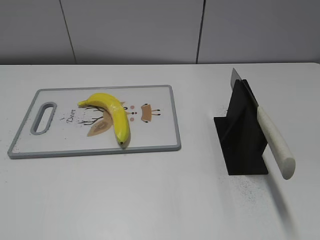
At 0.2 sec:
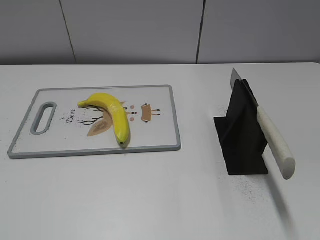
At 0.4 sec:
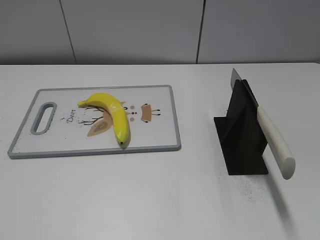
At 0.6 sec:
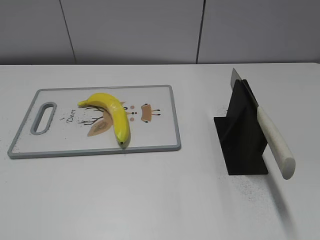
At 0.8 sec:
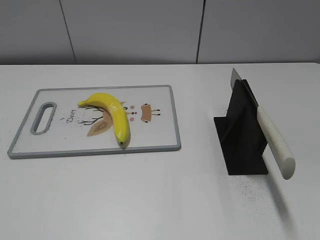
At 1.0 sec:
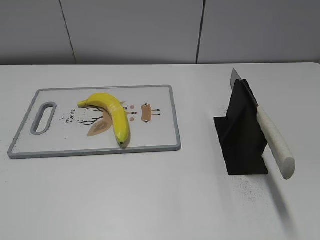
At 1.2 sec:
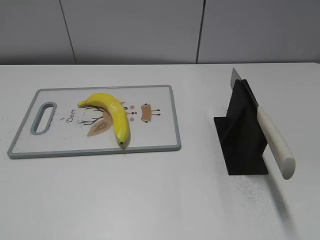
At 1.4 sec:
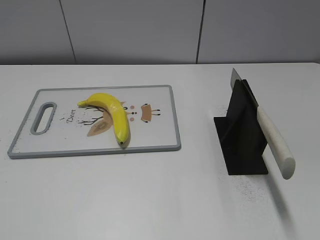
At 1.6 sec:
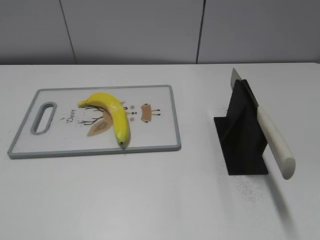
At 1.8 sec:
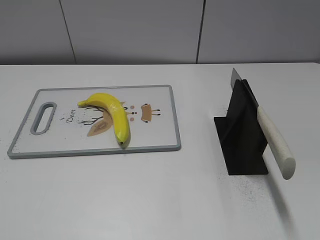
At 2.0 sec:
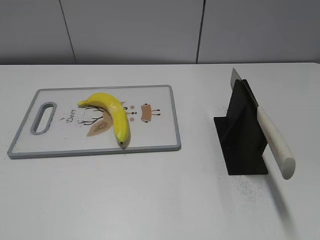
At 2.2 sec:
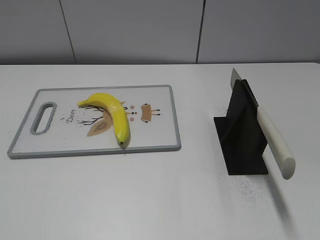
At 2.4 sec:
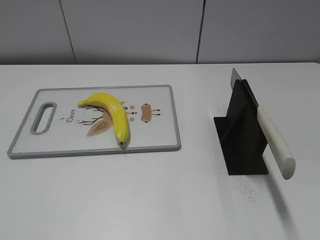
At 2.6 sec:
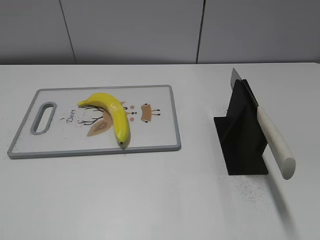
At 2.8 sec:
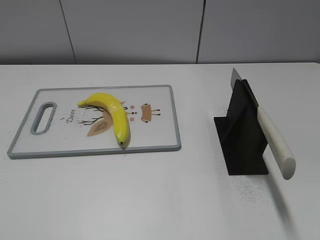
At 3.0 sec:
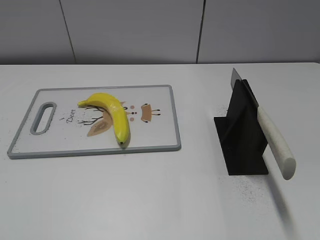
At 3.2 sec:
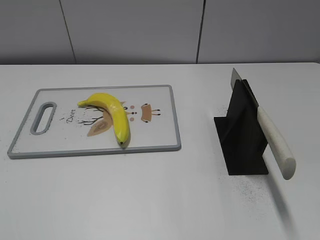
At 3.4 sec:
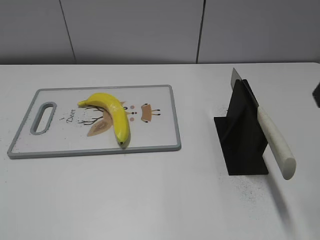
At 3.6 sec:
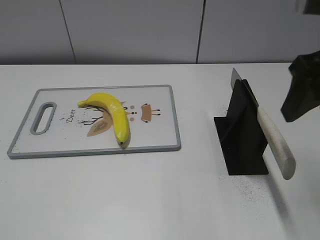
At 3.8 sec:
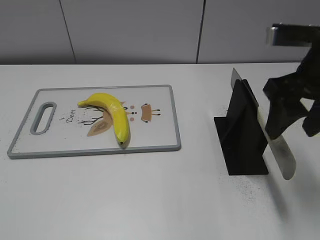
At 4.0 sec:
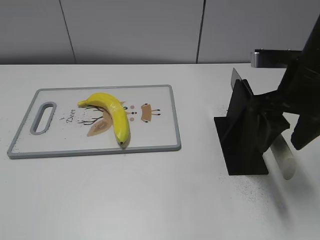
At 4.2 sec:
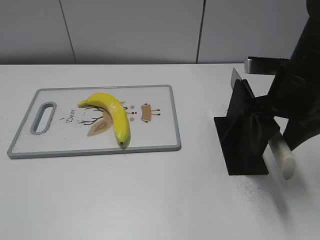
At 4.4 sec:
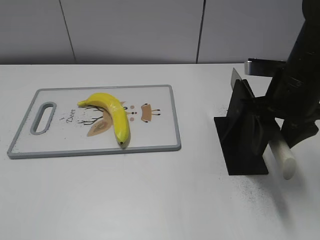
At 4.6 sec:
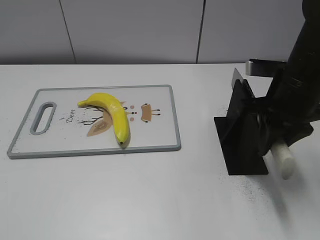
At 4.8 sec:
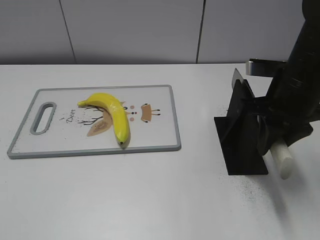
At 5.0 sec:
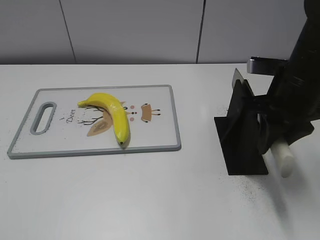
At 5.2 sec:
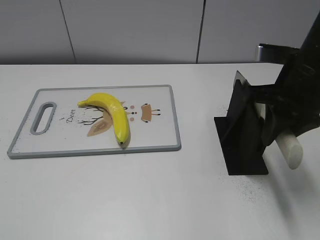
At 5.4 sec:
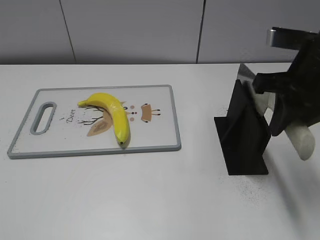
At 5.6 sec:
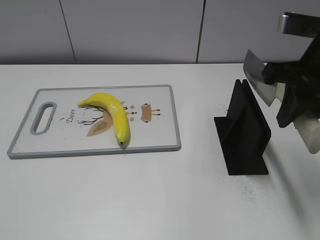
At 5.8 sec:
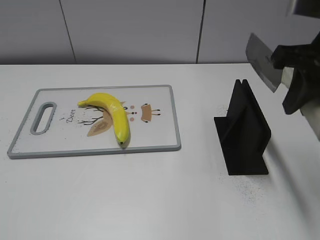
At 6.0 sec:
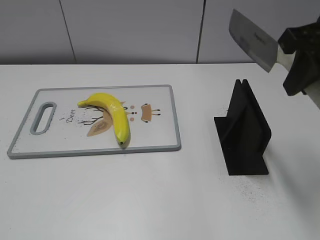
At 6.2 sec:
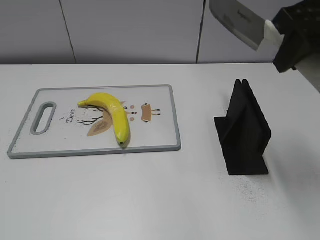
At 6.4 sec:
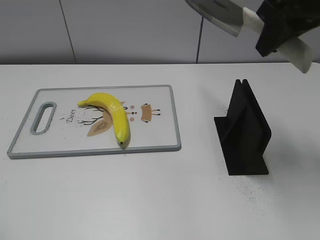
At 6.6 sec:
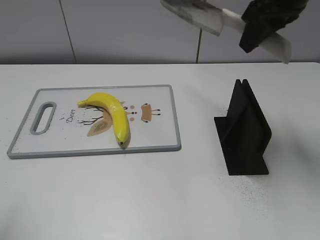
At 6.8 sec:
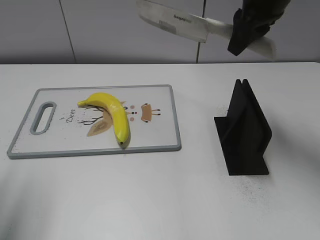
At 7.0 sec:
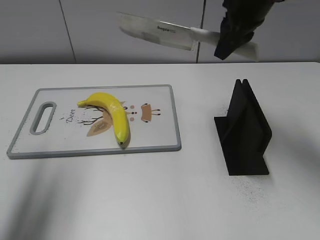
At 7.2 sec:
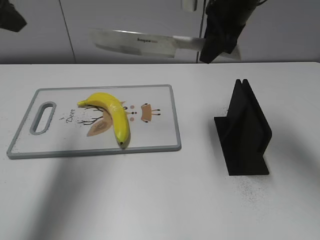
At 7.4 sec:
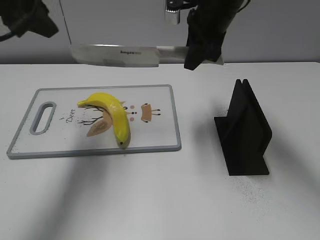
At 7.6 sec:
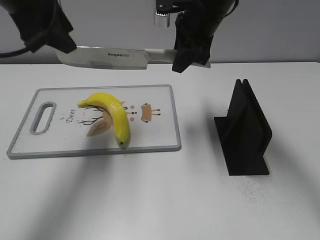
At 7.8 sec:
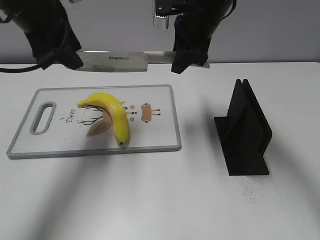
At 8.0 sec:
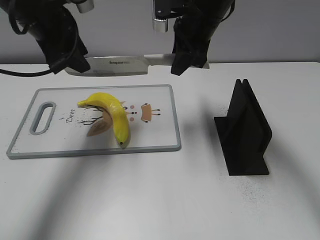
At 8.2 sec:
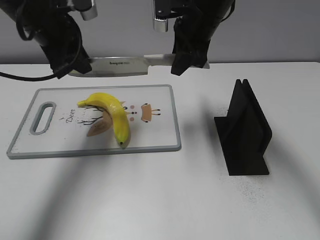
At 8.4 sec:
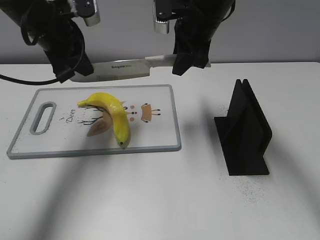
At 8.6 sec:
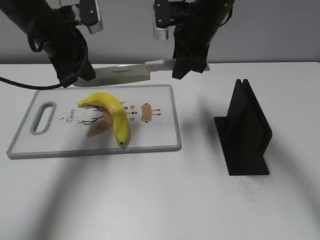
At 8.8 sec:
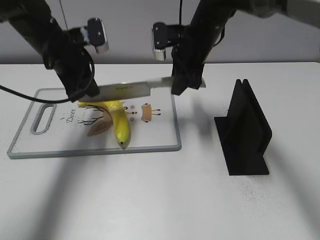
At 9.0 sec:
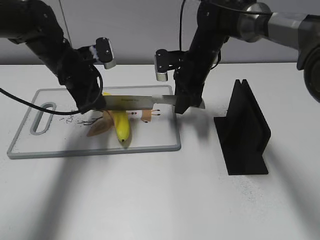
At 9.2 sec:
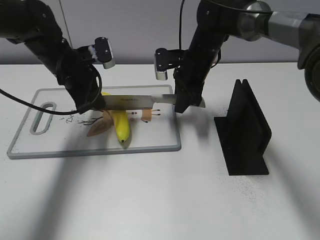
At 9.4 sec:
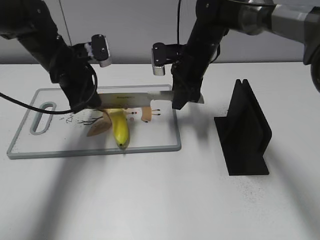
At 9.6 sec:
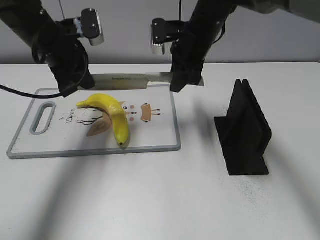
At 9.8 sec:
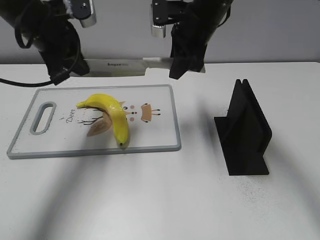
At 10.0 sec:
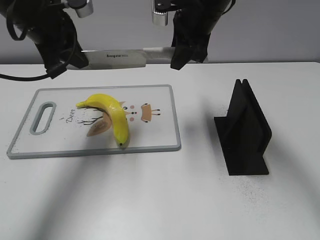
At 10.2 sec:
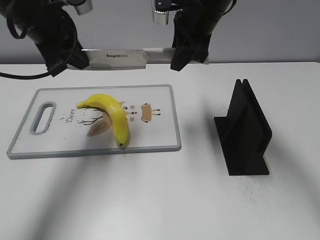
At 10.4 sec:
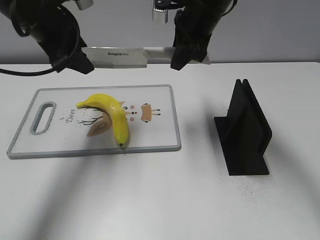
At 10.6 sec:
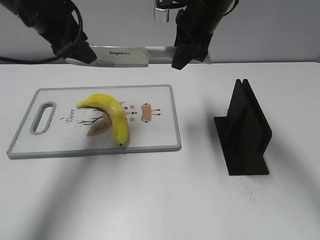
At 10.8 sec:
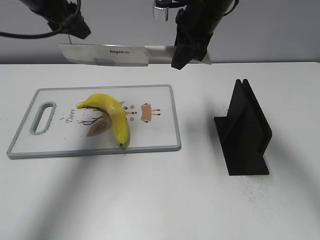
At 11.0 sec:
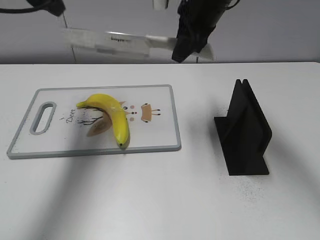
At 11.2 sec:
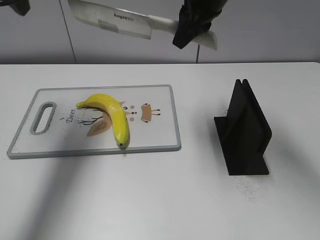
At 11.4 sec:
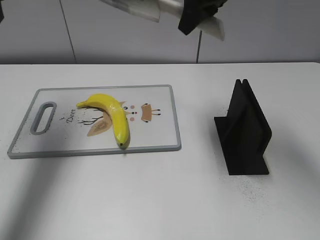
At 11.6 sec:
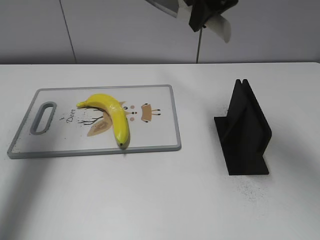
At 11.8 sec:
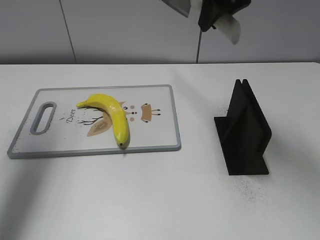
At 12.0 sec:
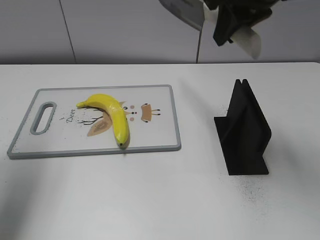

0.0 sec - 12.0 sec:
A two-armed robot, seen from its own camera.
Task of the whole recording: cut plastic banana.
Step, 0.0 sec - 5.6 sec: Grab the knife handle with your right hand.
Step, 6.0 sec - 10.4 sec: Lift the knife with your right hand.
Step, 10.8 sec - 11.2 sec: Cut the banana with your right hand.
3.0 sec - 4.4 sec: The right gripper heads forward, downward and to the left, covering some 20 cm, and closes up.
4.4 sec - 6.0 sec: The right gripper heads upward, covering about 10 cm, and closes up.
6.0 sec - 7.6 sec: The right gripper is displaced forward, to the left and downward by roughly 20 cm; the left gripper goes about 35 cm forward.
7.6 sec - 9.0 sec: The grippers both shift downward by roughly 15 cm. The left gripper closes.
9.0 sec - 10.4 sec: Both grippers travel together upward, roughly 15 cm. The left gripper opens up.
10.4 sec - 12.0 sec: The right gripper moves upward, backward and to the right, about 10 cm. Meanwhile the left gripper goes roughly 15 cm to the left, backward and upward.

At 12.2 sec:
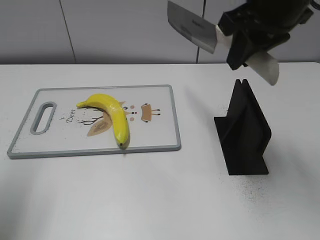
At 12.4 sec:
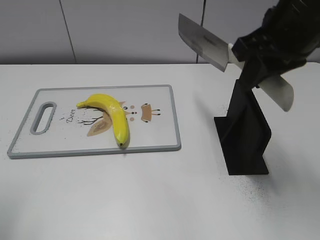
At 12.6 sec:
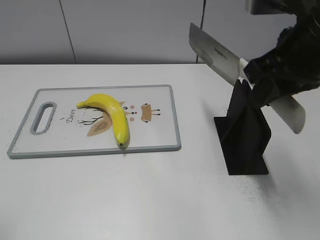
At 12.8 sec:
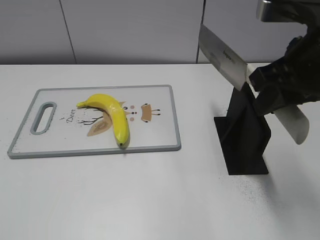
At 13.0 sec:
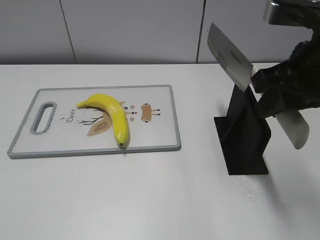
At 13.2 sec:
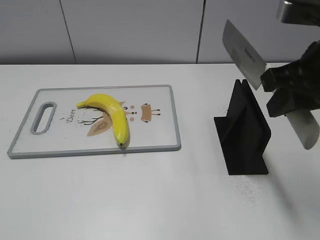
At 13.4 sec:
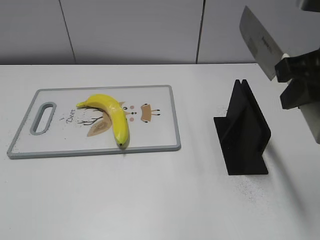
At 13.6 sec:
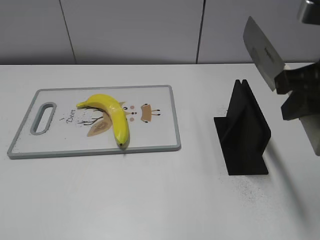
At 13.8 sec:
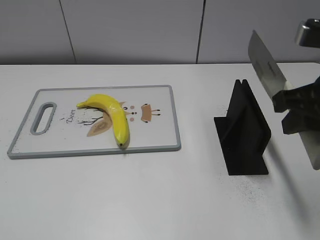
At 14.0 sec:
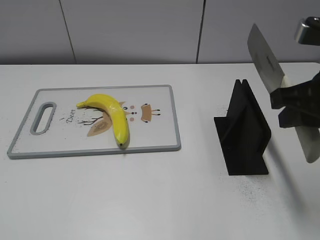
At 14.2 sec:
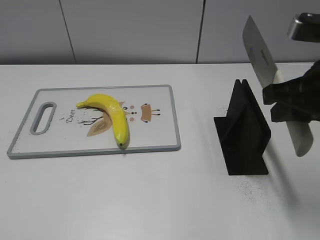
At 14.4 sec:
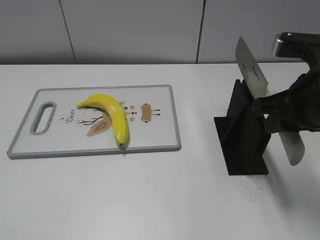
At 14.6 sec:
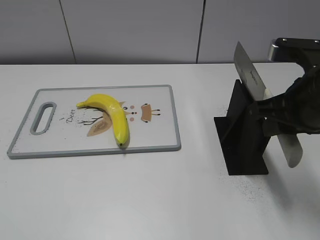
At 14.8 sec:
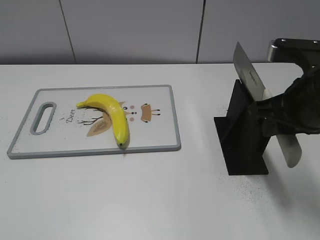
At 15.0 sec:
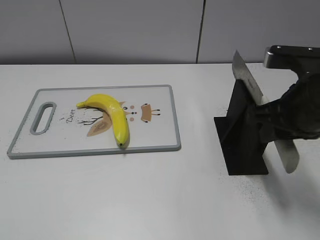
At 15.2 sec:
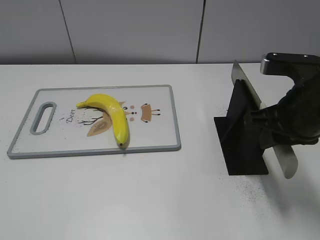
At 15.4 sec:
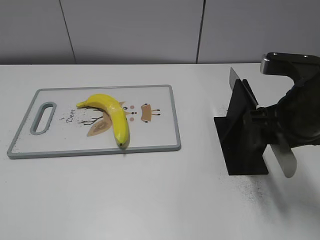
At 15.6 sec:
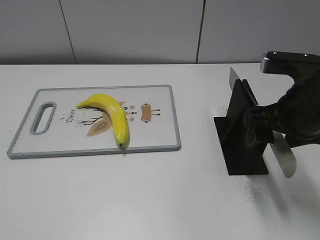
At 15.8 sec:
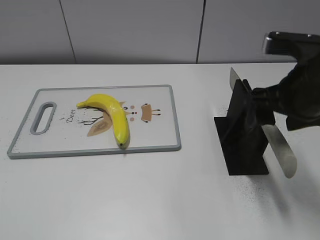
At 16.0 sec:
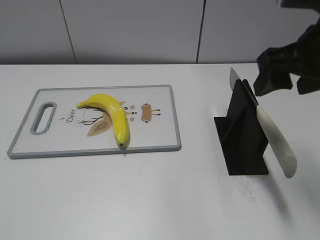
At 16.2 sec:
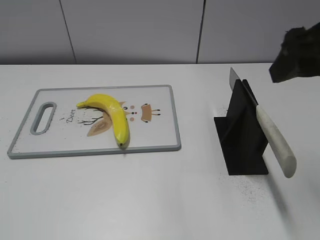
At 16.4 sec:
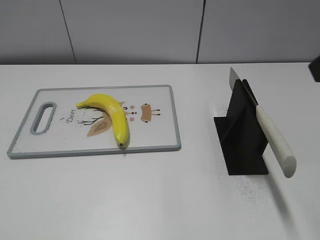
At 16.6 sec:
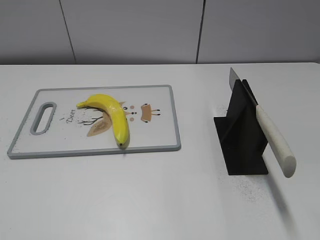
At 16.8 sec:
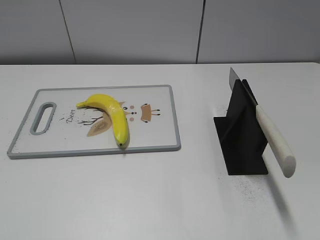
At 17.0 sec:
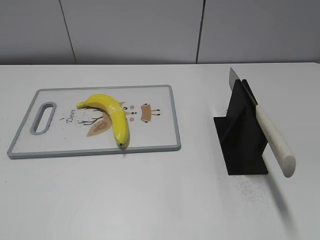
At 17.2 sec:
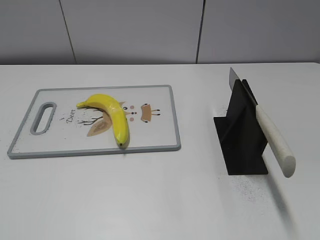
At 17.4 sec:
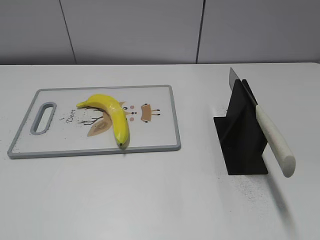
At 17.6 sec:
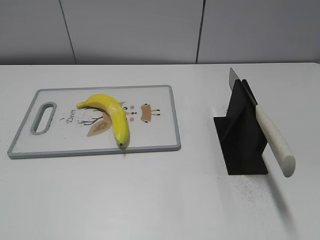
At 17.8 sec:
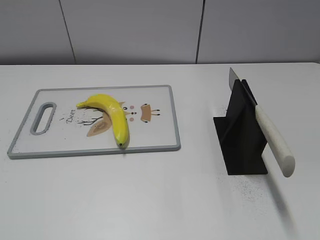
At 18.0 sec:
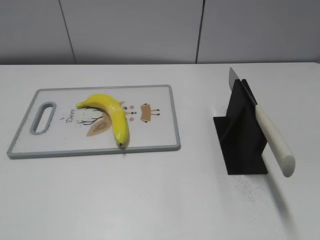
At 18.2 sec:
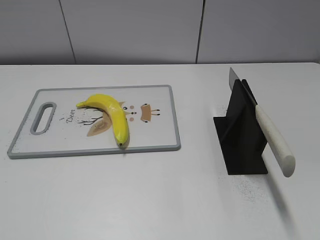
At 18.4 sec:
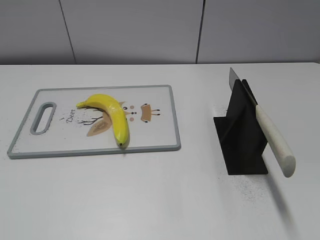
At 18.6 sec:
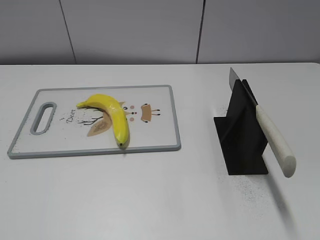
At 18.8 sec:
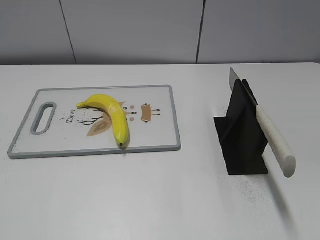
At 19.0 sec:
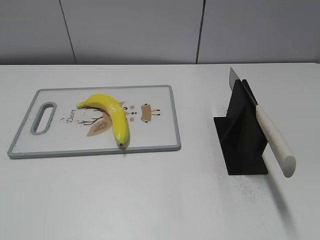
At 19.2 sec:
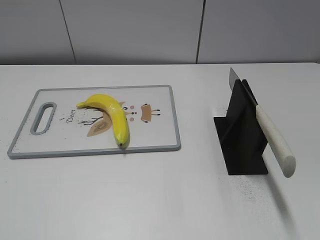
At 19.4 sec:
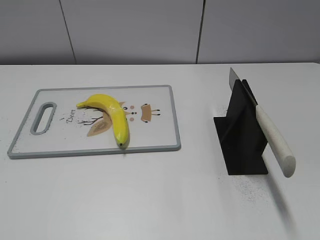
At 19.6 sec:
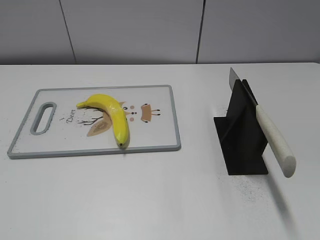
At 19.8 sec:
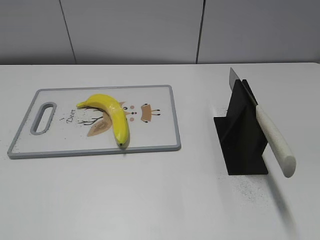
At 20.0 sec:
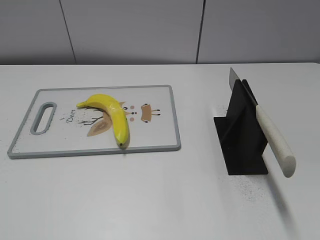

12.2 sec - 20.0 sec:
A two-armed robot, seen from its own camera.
Task of the whole recording: cut plastic banana.
Step, 13.0 sec - 19.2 sec: Place the knife on the storage rack with your right hand.
12.2 sec - 13.8 sec: The left gripper moves backward, approximately 25 cm. Meanwhile the right gripper moves backward, to the right and downward, some 15 cm.
13.8 sec - 15.4 sec: The right gripper shifts roughly 5 cm downward, and opens up.
15.4 sec - 16.8 sec: The right gripper is displaced backward, upward and to the right by some 20 cm, and opens.
